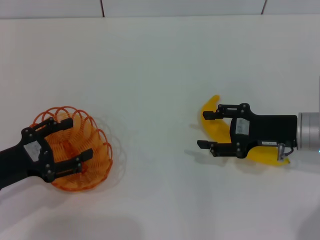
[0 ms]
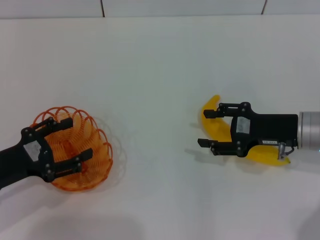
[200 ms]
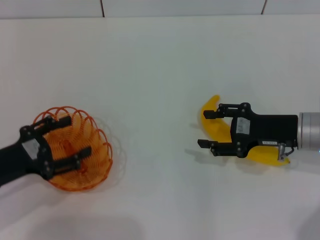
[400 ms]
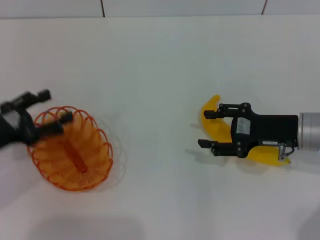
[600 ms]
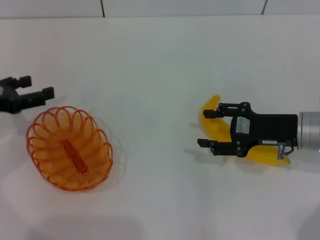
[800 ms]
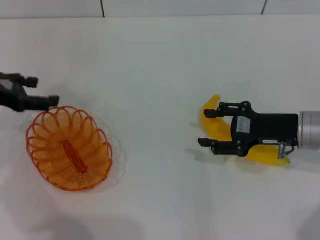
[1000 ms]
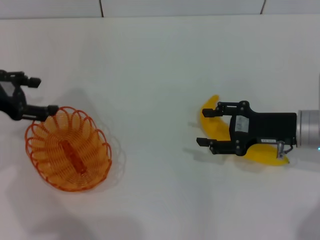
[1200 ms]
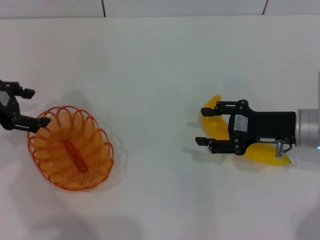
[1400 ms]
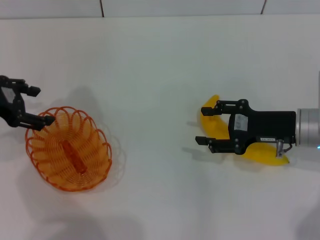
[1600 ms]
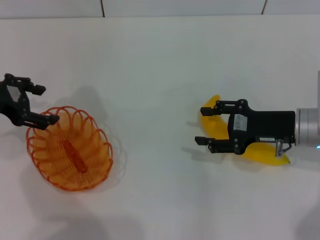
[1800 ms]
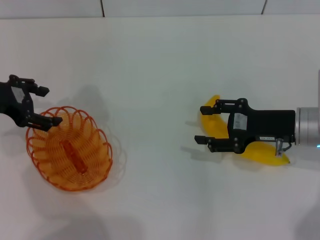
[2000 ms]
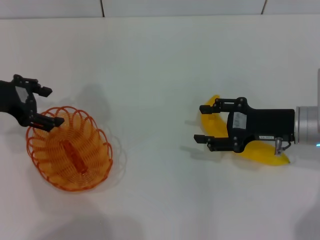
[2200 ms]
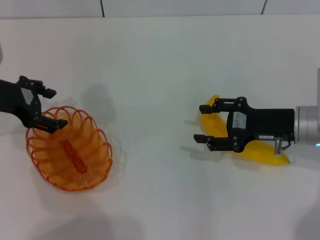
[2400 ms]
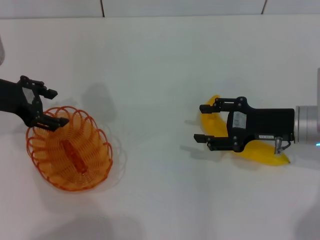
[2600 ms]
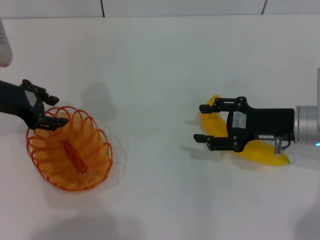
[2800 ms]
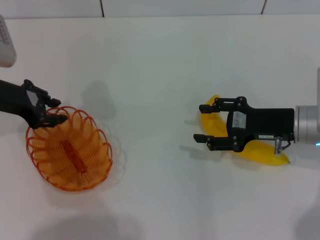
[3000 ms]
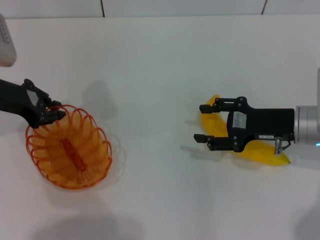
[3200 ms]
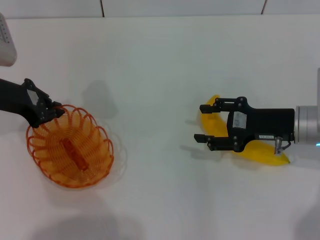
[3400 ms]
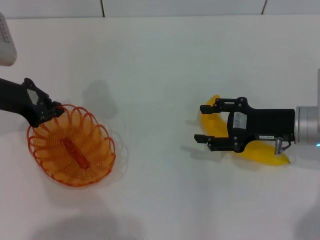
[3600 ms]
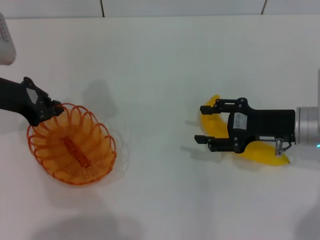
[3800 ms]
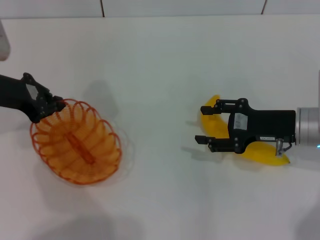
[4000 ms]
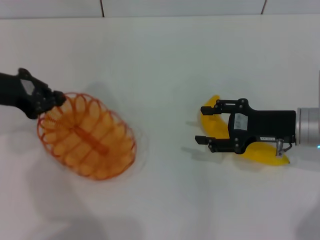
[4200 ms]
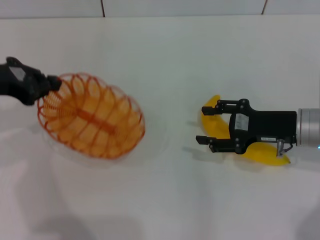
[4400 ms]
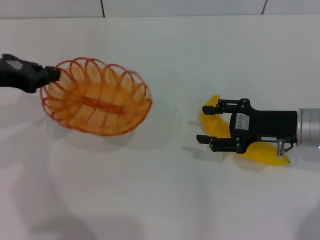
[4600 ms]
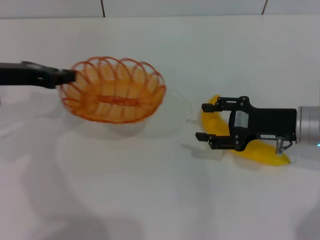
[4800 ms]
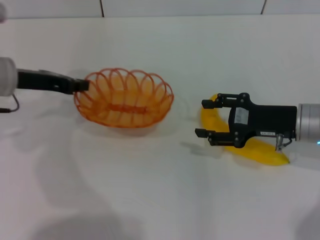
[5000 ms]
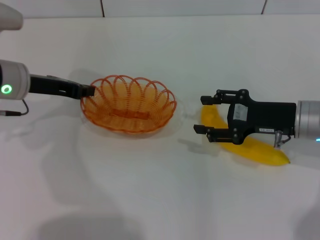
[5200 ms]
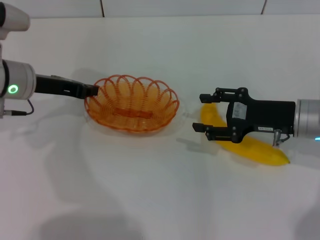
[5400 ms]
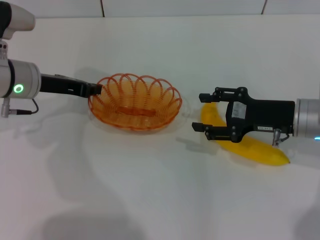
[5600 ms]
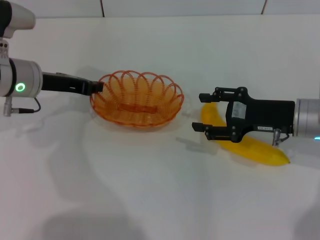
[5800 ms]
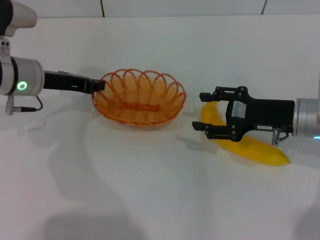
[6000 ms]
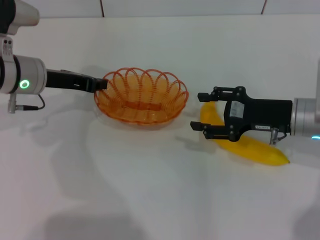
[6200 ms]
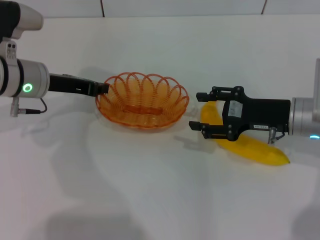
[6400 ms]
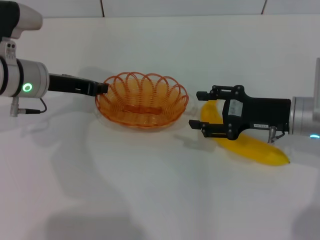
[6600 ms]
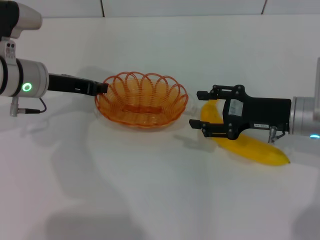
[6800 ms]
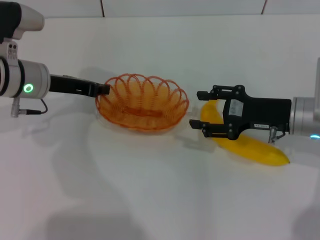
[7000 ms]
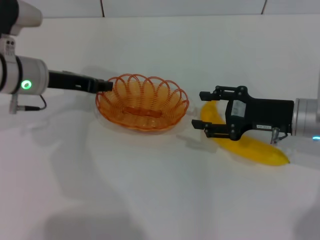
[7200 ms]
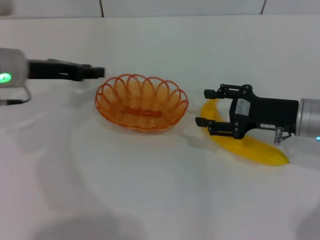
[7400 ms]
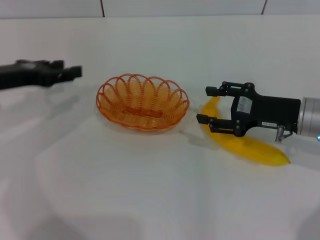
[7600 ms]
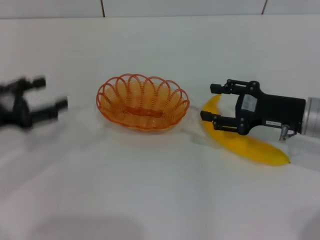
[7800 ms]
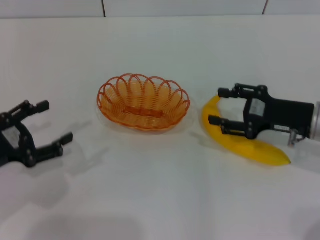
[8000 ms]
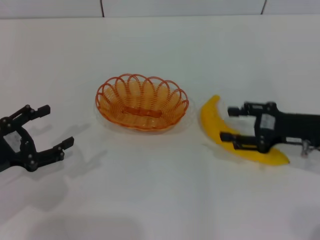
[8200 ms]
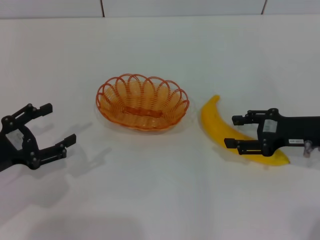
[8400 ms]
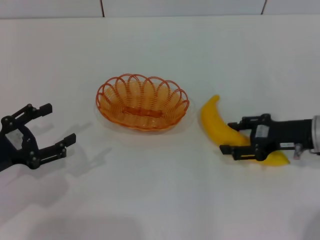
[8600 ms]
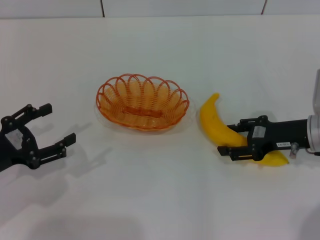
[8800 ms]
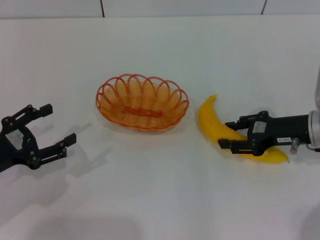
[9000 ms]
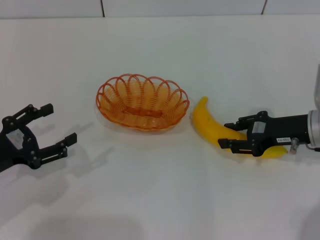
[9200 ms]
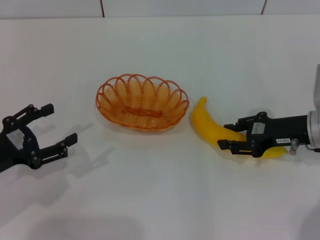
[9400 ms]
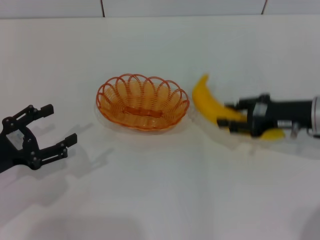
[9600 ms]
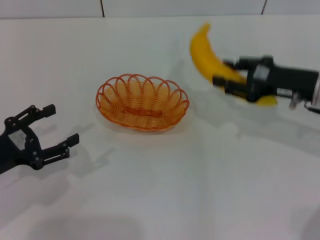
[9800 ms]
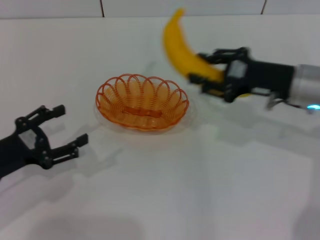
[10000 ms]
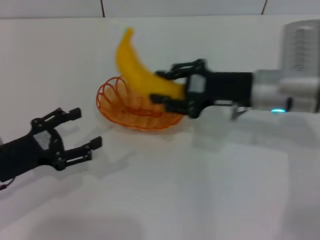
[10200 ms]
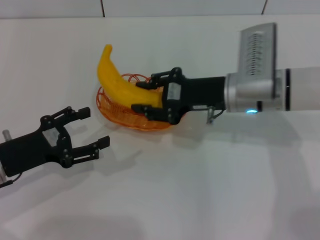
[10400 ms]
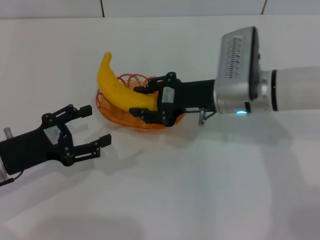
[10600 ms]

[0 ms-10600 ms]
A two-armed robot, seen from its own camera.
Step, 0 ms to 4000 ms: Pick up the basket with the left gripper.
Step, 4200 ms to 7600 ms: Place the basket in the center of view with the left gripper.
Step, 7800 ms to 9600 ms: Pick up the banana with the right gripper.
0 ms to 1600 ms: The left gripper heads forward and upward, covering roughly 15 cm.
1600 ms to 3000 ms: The grippers move only a little.
3000 ms to 4600 ms: The left gripper shifts by about 5 cm, and closes up.
4600 ms to 6000 ms: The left gripper goes some 10 cm to the right and downward.
6000 ms to 7600 ms: The left gripper goes roughly 5 cm to the left, and opens its fingers.
7600 ms to 9000 ms: The left gripper shifts roughly 15 cm backward and downward, and opens its fingers.
9000 ms to 10600 ms: The right gripper shifts about 15 cm to the left, and closes.

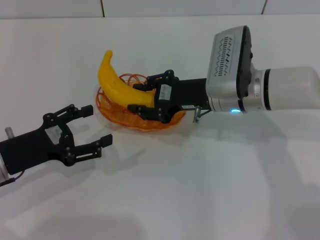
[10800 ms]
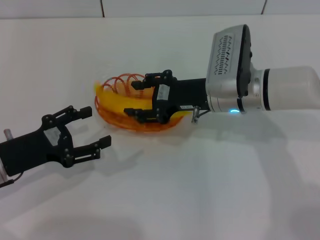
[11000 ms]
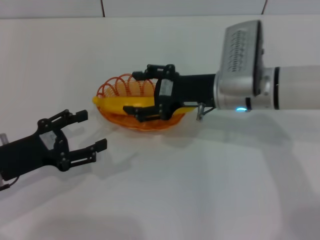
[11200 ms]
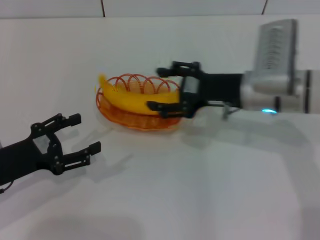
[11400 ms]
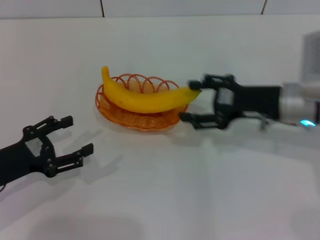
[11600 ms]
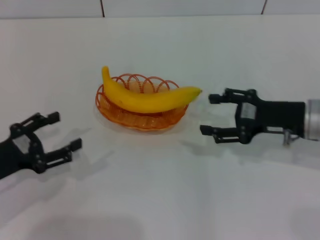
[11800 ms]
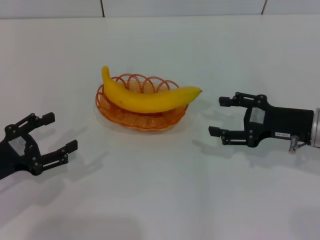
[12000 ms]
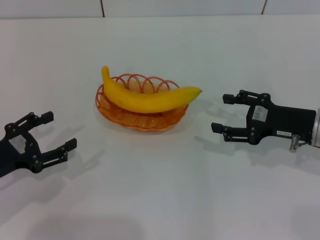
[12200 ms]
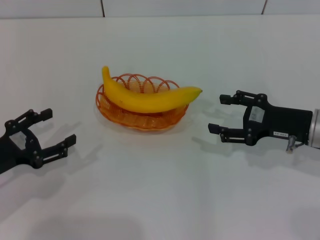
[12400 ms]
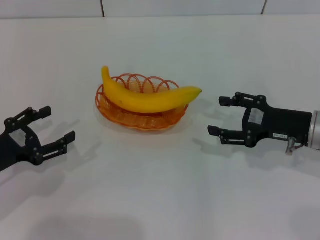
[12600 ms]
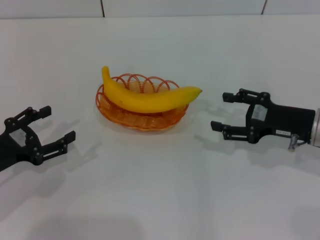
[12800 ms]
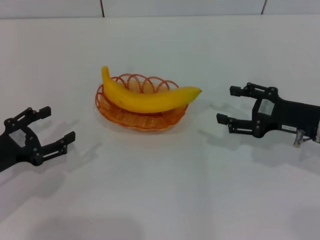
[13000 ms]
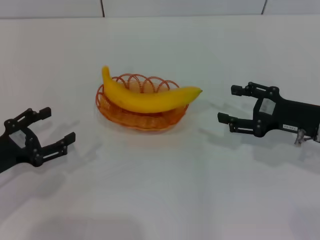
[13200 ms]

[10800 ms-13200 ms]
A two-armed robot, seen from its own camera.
10800 ms to 12000 ms: The right gripper is displaced to the right and backward by roughly 15 cm, and opens up.
12000 ms to 13200 ms: The grippers make only small movements.
